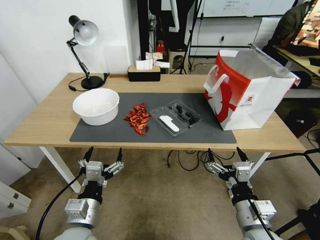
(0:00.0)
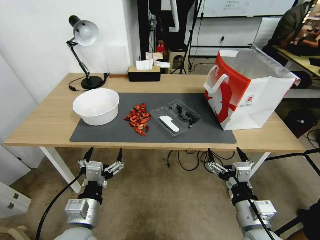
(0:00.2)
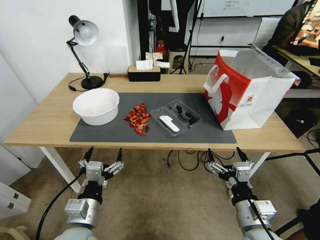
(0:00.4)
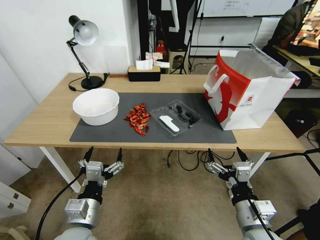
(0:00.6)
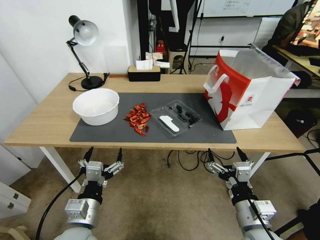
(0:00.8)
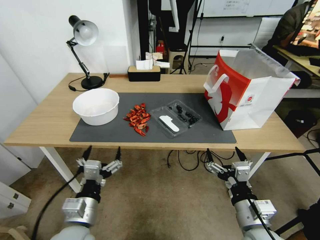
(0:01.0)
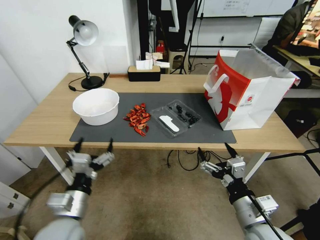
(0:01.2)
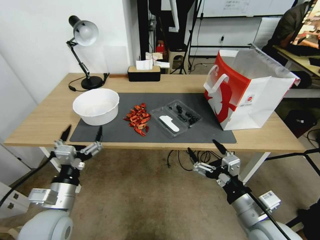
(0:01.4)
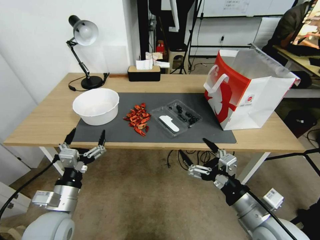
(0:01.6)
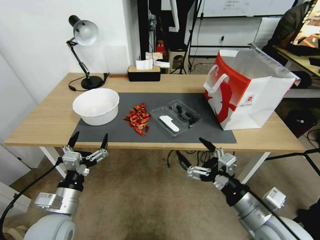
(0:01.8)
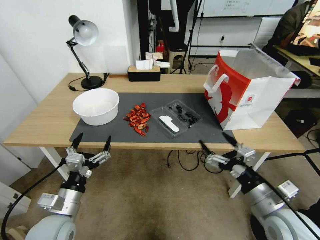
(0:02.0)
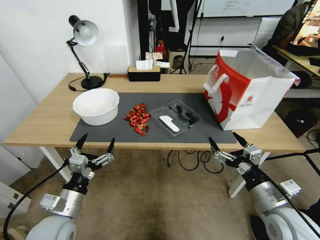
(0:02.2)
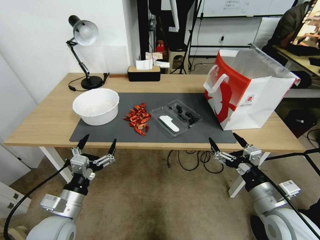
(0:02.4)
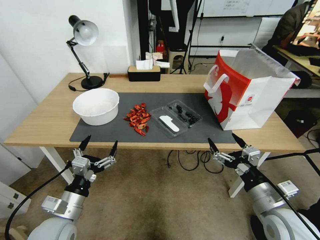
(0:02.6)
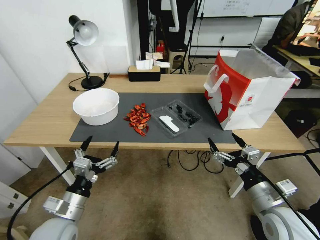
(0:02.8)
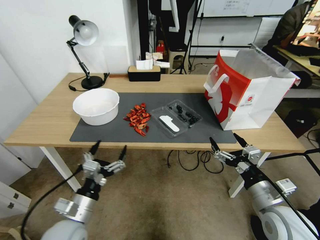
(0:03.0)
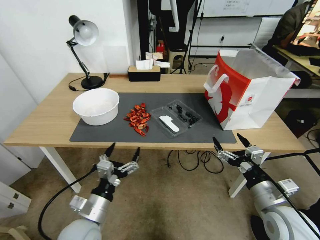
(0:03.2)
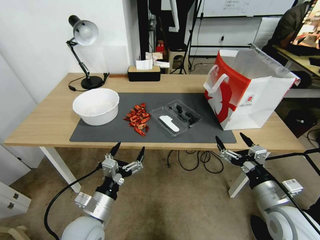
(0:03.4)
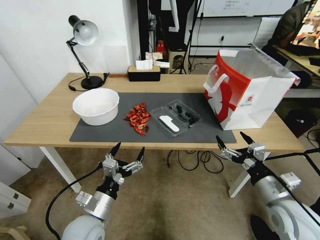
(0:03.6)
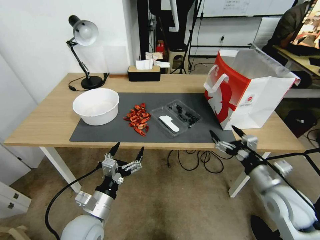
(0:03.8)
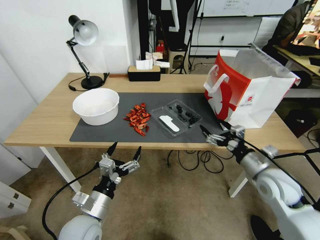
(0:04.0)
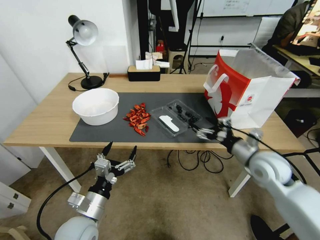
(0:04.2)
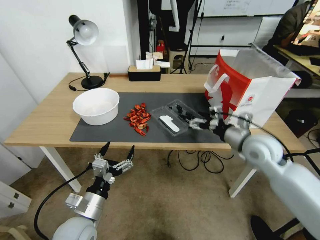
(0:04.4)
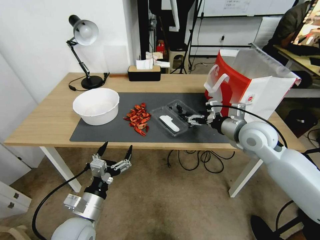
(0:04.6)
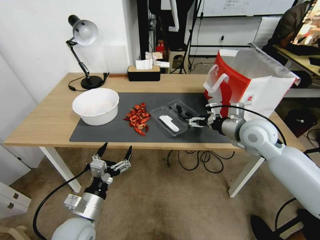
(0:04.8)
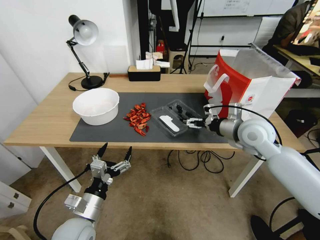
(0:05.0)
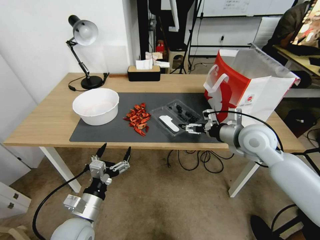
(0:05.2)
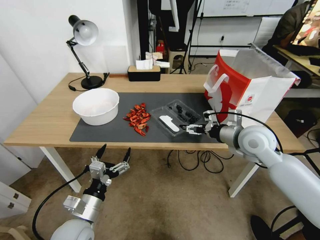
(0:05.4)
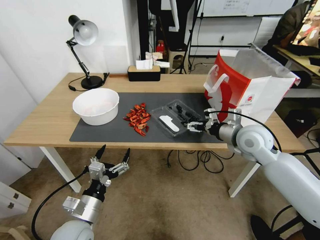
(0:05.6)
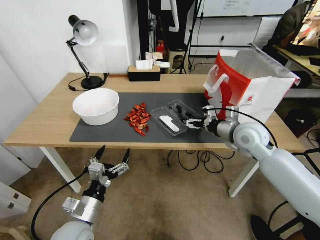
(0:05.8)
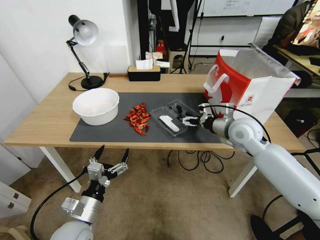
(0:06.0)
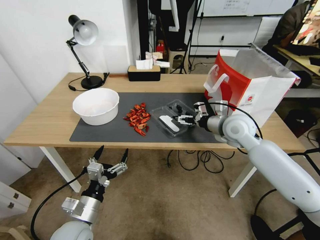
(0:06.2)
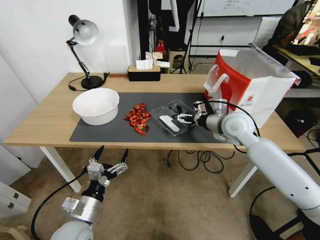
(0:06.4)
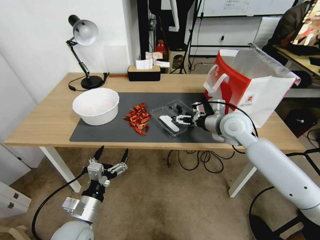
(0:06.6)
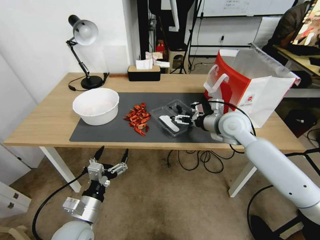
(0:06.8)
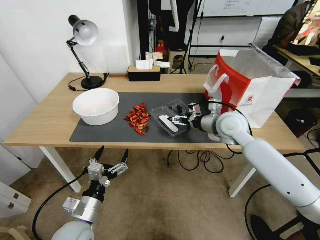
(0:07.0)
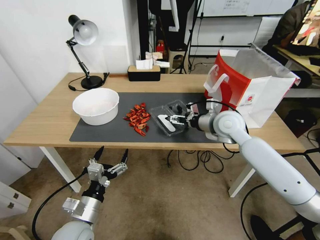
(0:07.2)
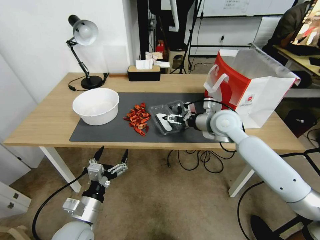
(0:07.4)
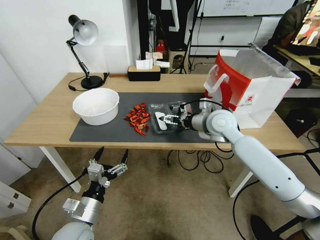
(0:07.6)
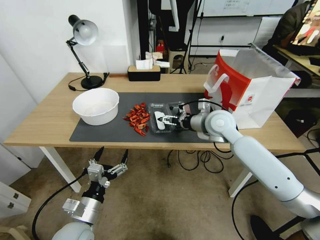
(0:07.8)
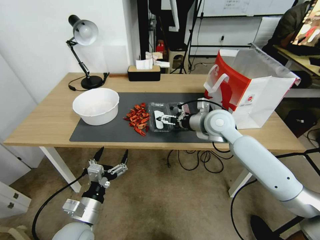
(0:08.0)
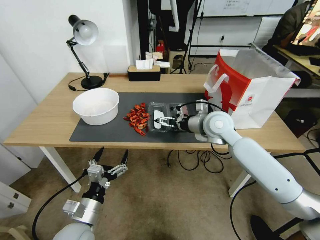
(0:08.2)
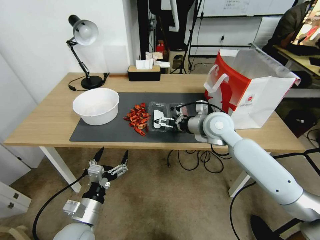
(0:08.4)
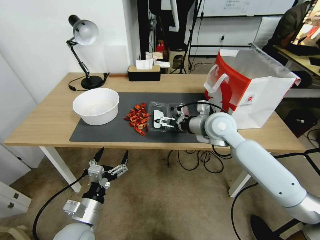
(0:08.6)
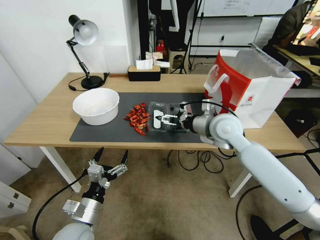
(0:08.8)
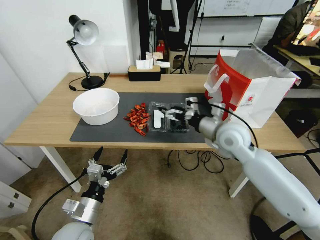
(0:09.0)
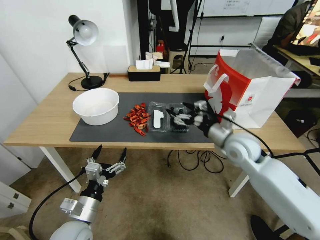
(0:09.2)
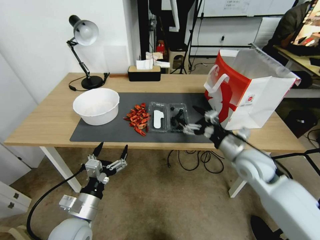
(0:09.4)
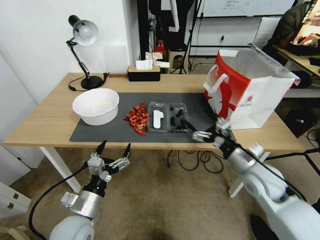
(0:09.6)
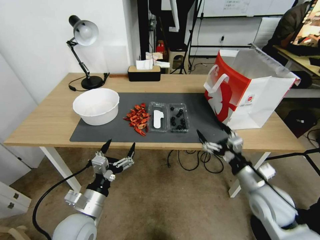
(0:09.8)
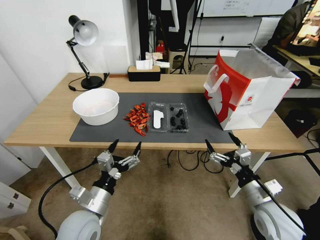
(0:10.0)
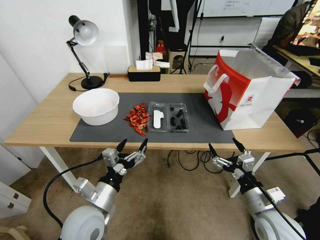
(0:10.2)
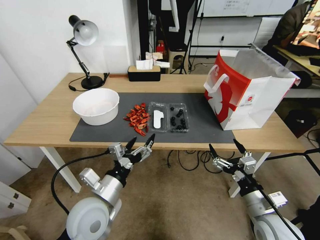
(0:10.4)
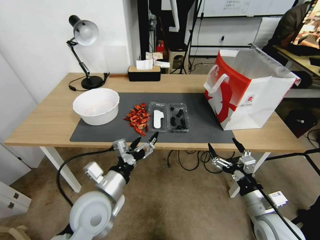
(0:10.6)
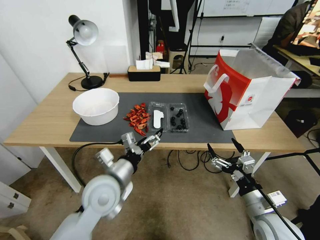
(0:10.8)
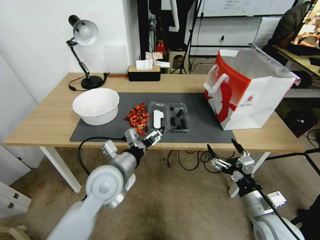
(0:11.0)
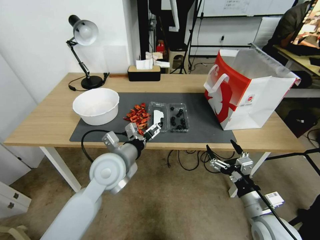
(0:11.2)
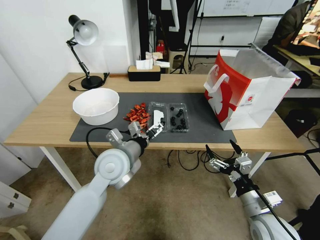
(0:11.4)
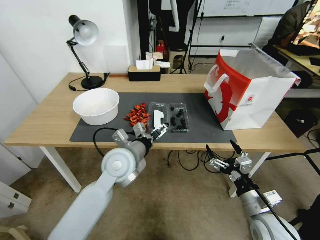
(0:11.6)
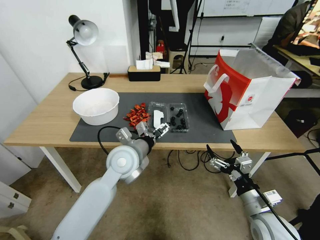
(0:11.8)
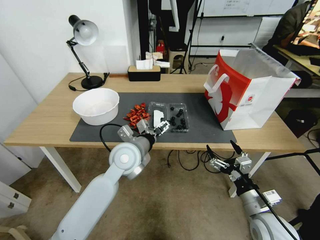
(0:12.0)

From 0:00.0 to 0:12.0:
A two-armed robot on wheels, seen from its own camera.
From 0:01.6 to 0:03.0: The right gripper moves to the right, some 5 cm.
From 0:03.0 to 0:04.4: The right gripper is displaced forward and upward by roughly 20 cm.
From 0:04.4 to 0:06.0: The right gripper is displaced forward by approximately 5 cm.
From 0:06.0 to 0:07.6: The right gripper travels to the left by roughly 5 cm.
From 0:07.6 to 0:09.0: The right gripper shifts by some 5 cm.
From 0:09.0 to 0:10.4: The left gripper moves upward and to the right, about 10 cm. Meanwhile the right gripper travels backward and downward by approximately 25 cm.
From 0:10.4 to 0:12.0: The left gripper heads forward and to the right, covering some 15 cm.

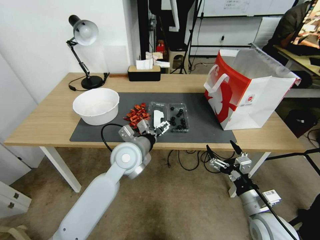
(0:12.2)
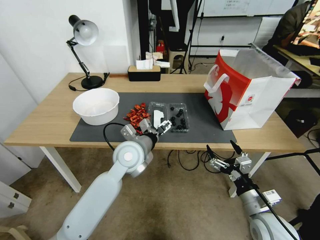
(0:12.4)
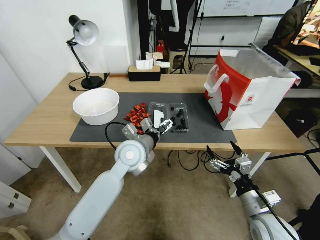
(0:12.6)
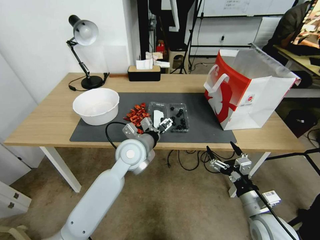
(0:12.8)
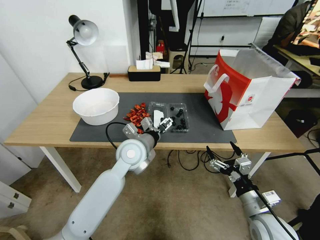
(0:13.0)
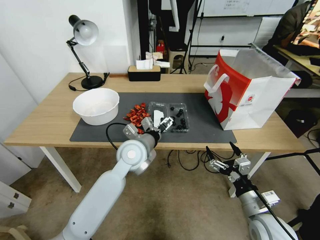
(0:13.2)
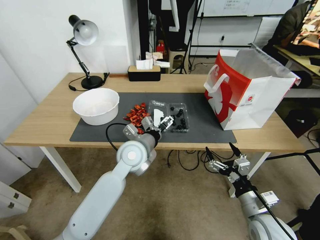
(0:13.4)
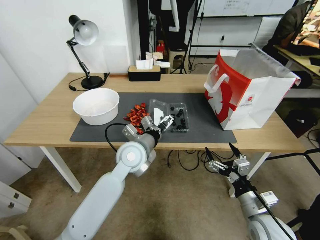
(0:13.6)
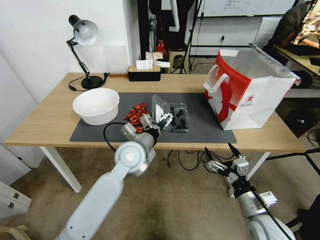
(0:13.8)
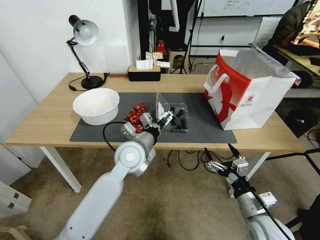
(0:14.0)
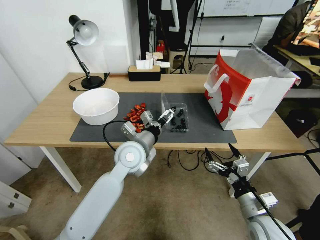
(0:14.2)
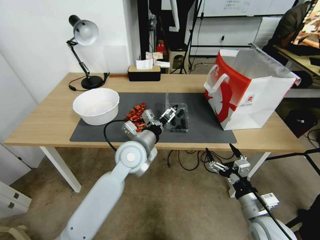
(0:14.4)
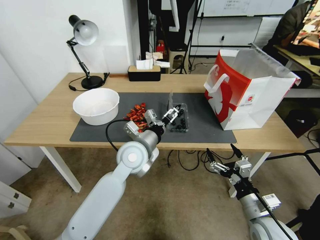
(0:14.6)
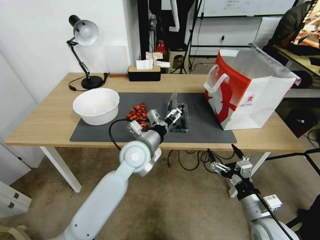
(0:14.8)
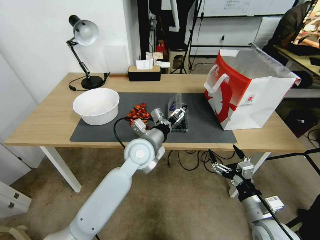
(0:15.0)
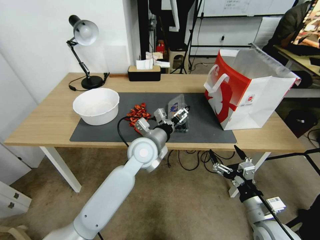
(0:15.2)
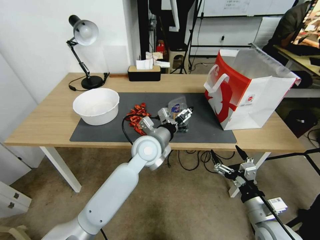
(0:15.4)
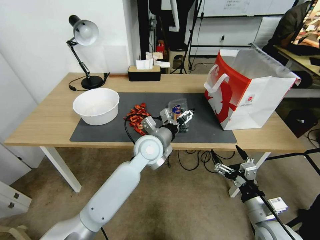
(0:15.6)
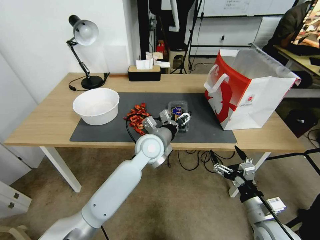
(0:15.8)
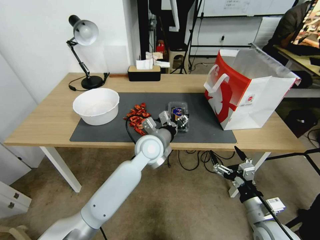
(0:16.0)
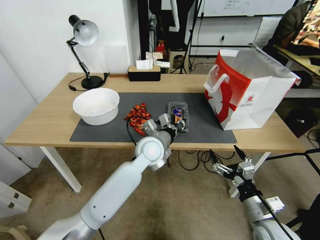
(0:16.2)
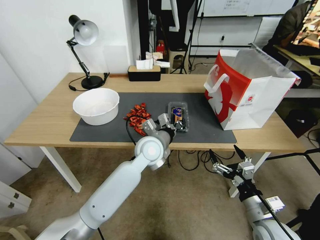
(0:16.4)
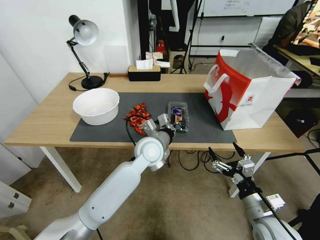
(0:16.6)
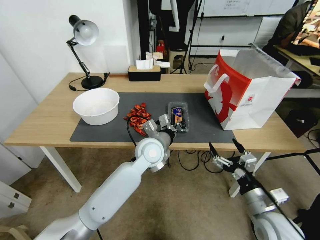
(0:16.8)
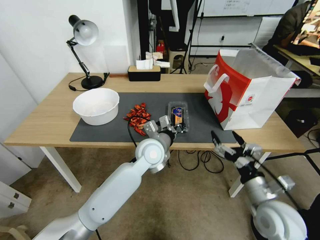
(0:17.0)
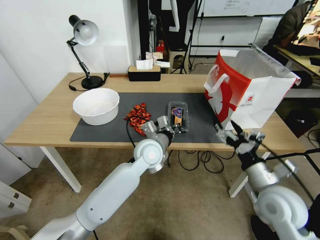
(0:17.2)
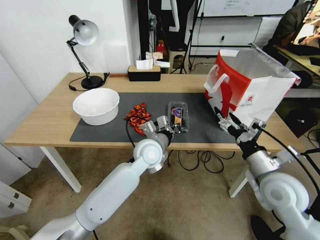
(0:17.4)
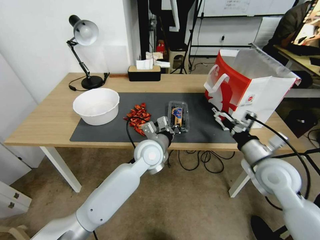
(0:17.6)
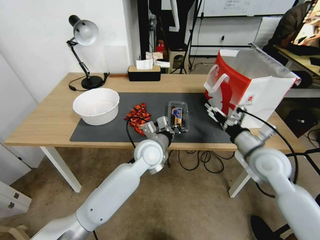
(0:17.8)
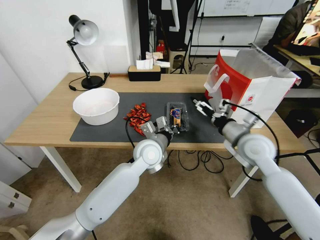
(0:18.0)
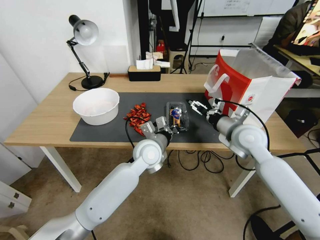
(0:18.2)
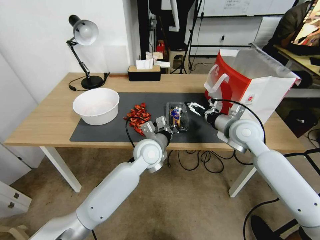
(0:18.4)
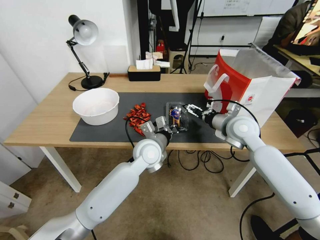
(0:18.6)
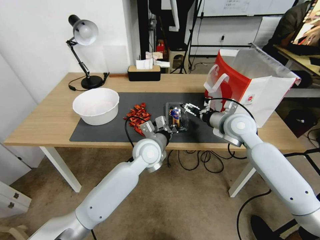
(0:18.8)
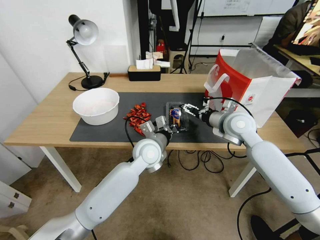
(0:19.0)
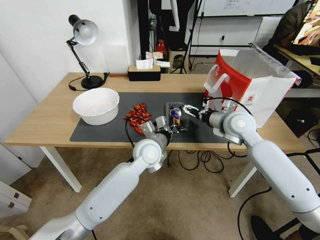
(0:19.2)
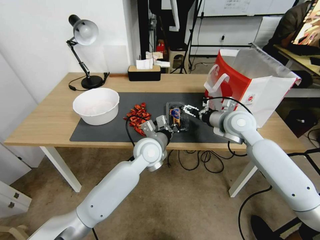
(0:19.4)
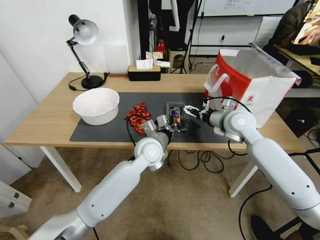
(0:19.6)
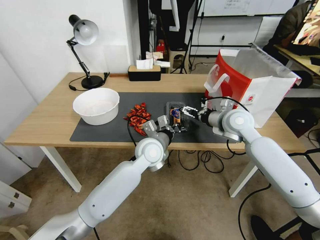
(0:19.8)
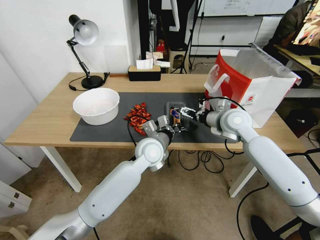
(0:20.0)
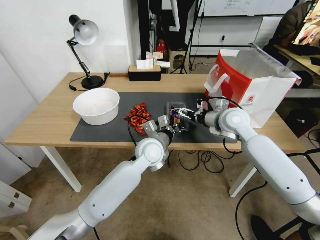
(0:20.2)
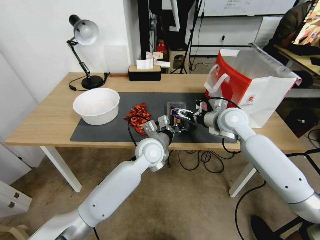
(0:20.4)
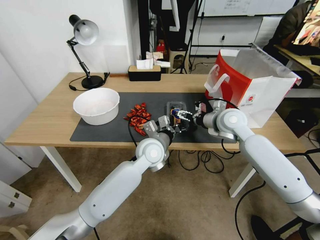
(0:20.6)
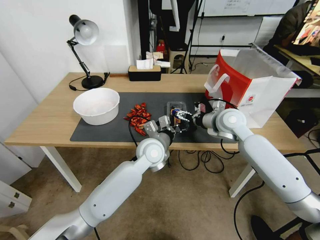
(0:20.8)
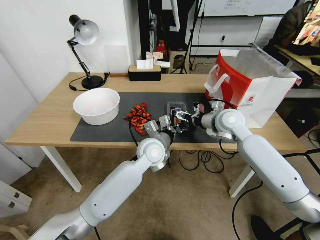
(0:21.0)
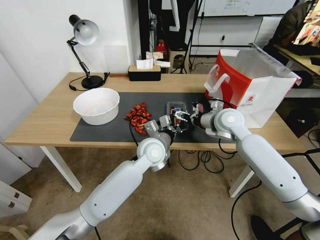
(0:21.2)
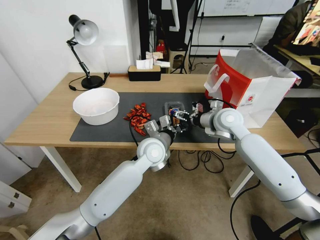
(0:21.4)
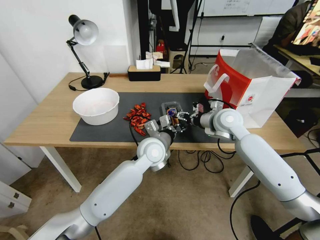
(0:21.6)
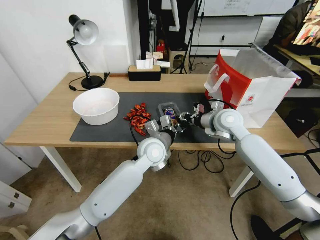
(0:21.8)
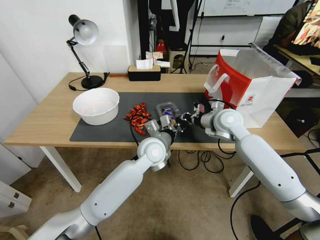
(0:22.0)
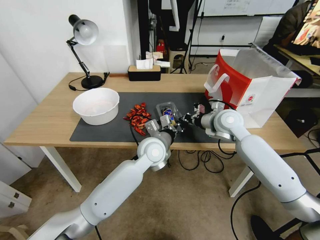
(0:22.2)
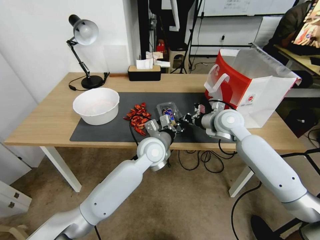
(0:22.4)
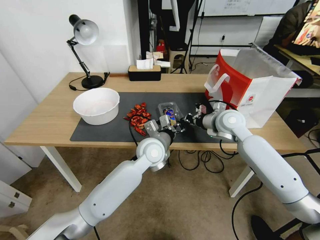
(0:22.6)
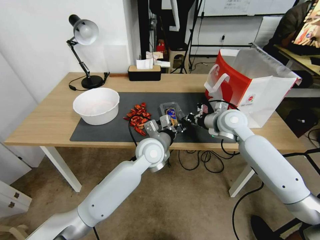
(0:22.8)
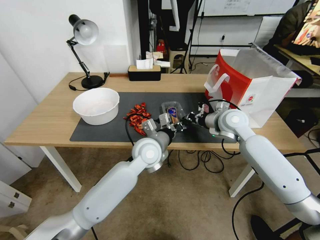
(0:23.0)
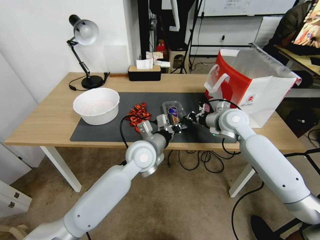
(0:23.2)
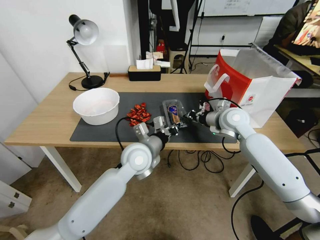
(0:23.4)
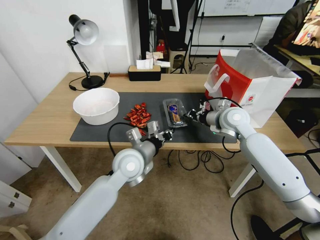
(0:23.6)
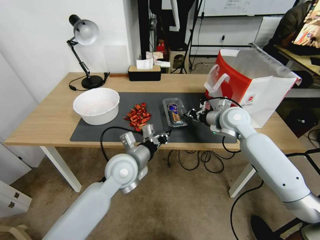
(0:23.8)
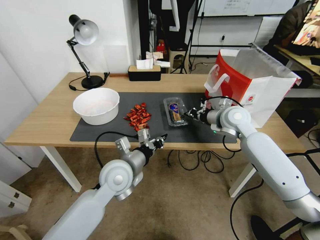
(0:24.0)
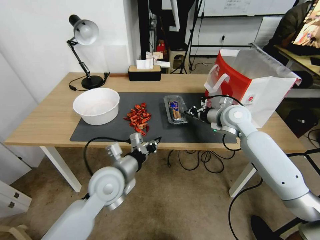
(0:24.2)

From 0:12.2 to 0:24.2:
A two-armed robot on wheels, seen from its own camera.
From 0:12.2 to 0:15.2: The grippers stay close to where they were, moving slightly.
From 0:15.2 to 0:16.6: The left gripper closes up.
From 0:16.6 to 0:18.2: The right gripper heads forward and upward, covering approximately 25 cm.
From 0:18.2 to 0:19.8: The right gripper is displaced forward by roughly 5 cm.
From 0:19.8 to 0:21.2: There are only small adjustments of the grippers.
From 0:21.2 to 0:22.6: The right gripper closes its fingers.
From 0:22.6 to 0:24.2: The left gripper is displaced to the left and backward by about 15 cm.
